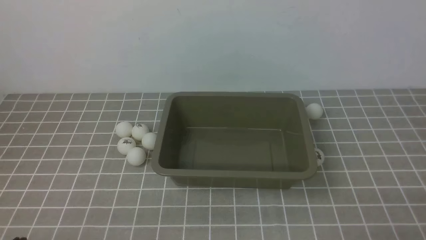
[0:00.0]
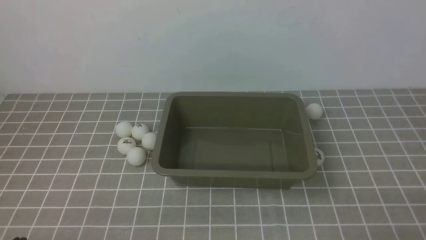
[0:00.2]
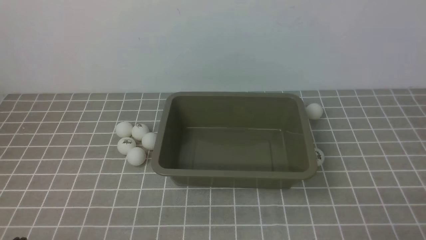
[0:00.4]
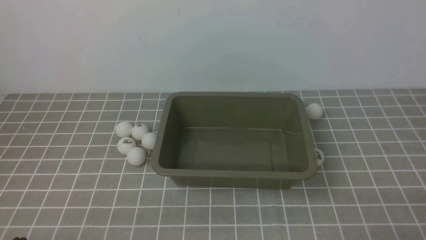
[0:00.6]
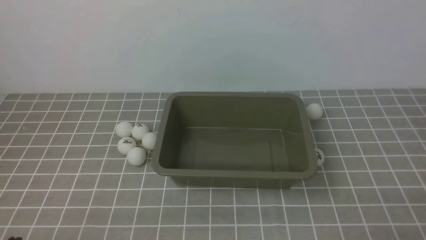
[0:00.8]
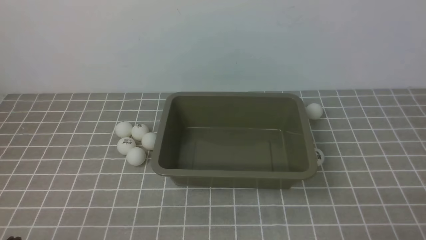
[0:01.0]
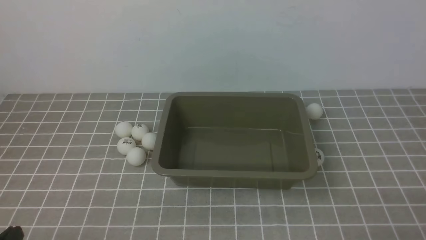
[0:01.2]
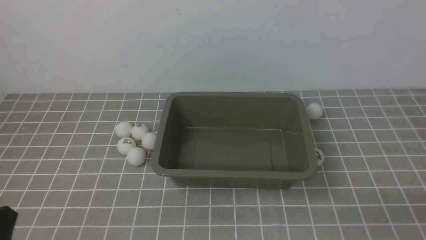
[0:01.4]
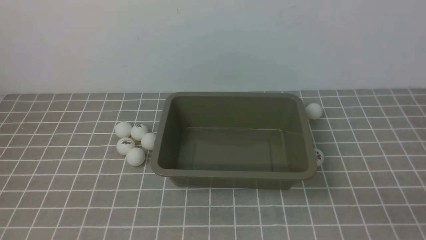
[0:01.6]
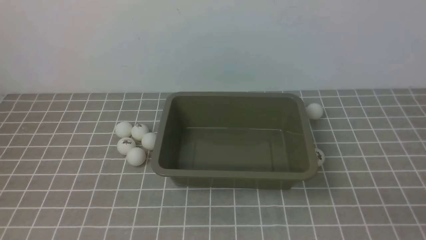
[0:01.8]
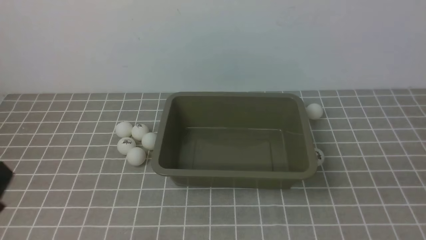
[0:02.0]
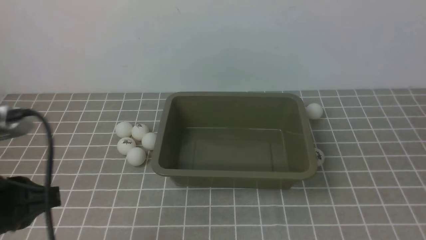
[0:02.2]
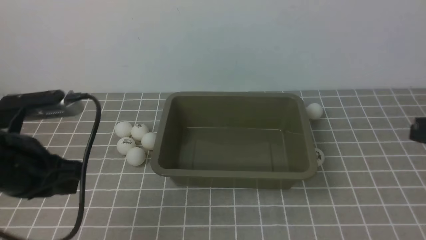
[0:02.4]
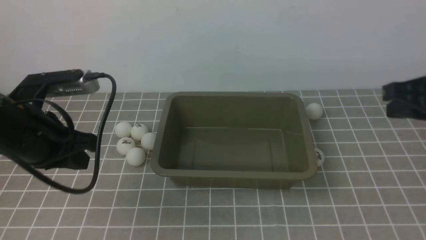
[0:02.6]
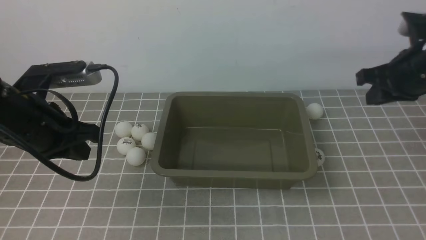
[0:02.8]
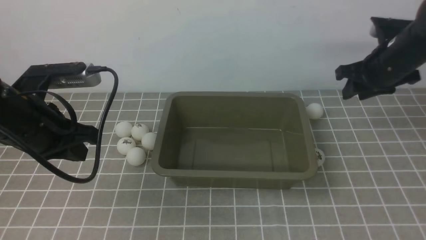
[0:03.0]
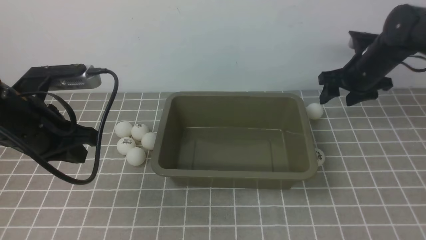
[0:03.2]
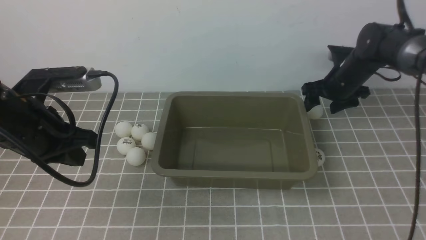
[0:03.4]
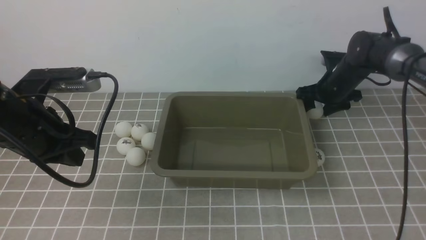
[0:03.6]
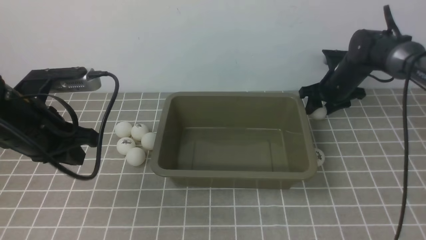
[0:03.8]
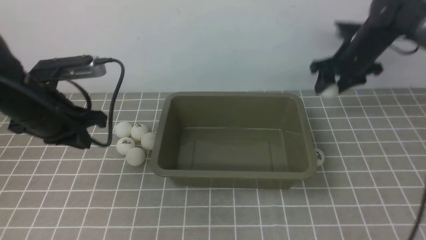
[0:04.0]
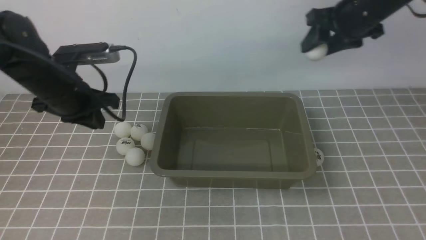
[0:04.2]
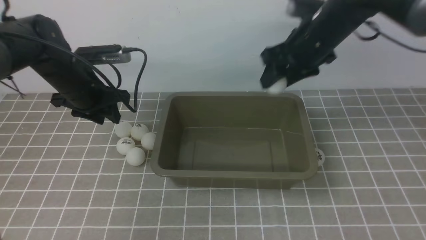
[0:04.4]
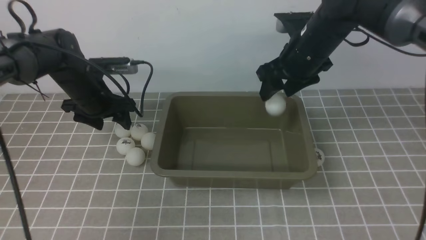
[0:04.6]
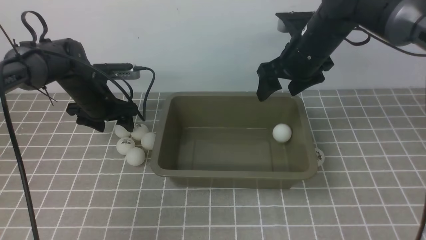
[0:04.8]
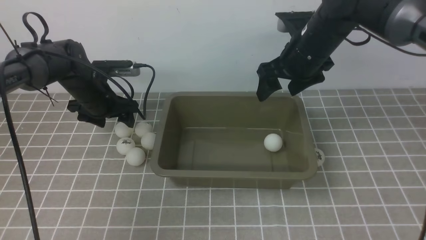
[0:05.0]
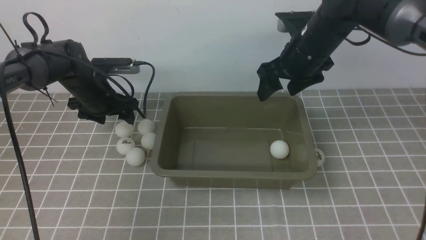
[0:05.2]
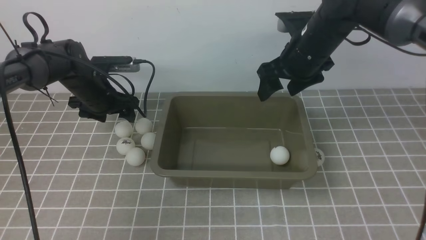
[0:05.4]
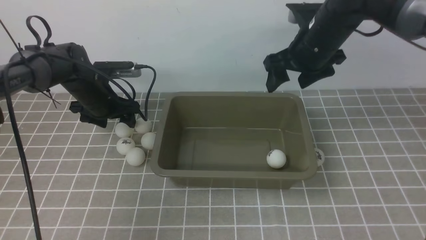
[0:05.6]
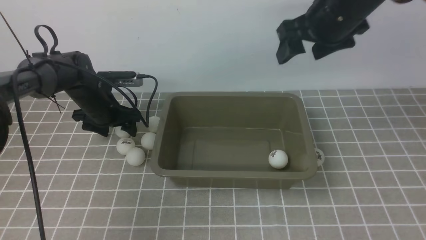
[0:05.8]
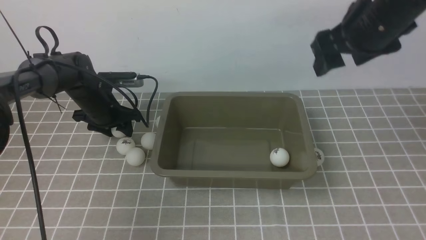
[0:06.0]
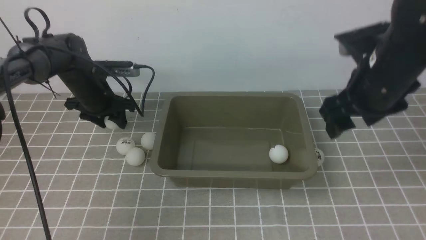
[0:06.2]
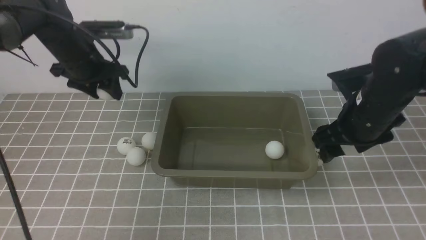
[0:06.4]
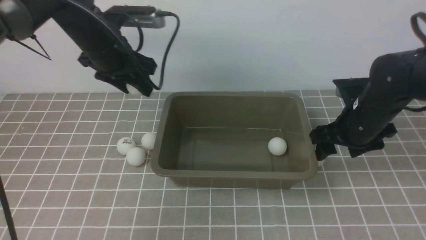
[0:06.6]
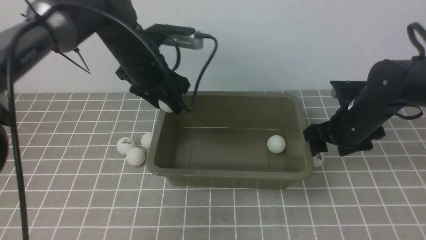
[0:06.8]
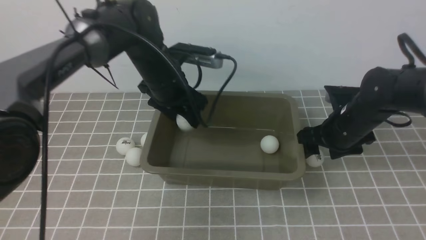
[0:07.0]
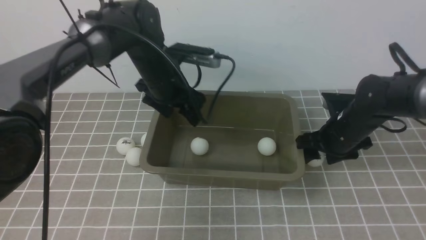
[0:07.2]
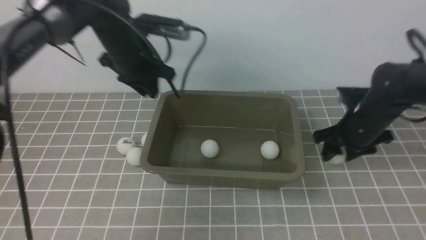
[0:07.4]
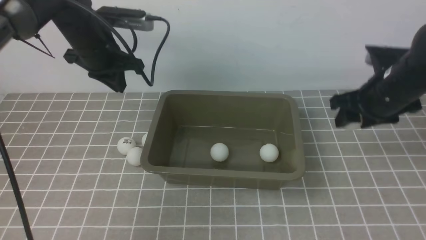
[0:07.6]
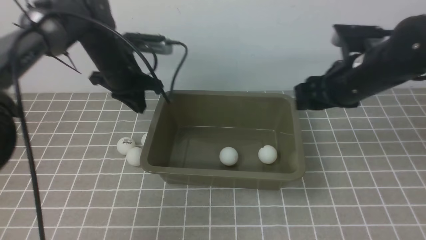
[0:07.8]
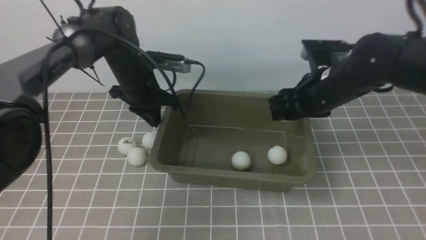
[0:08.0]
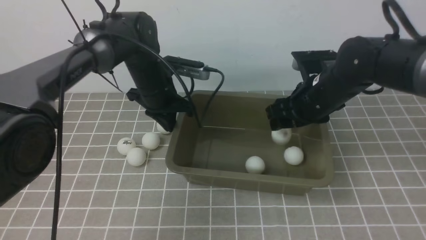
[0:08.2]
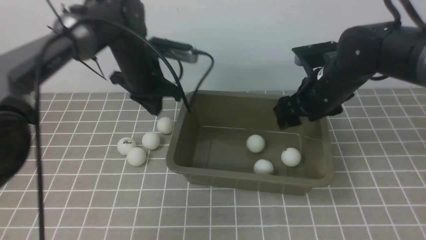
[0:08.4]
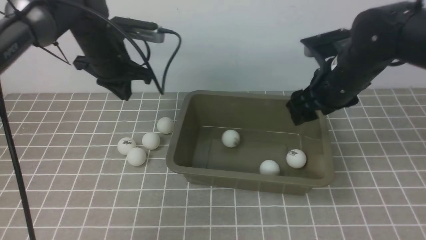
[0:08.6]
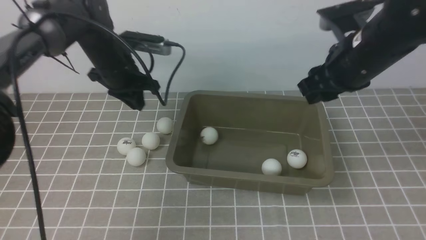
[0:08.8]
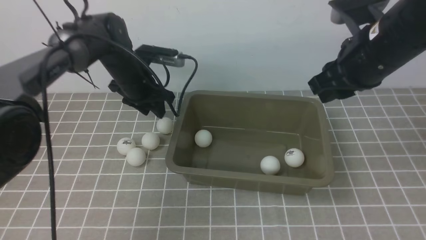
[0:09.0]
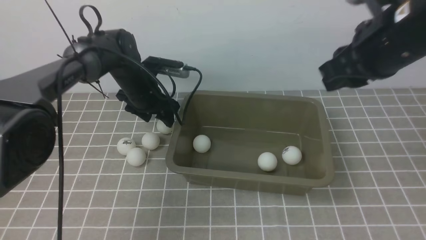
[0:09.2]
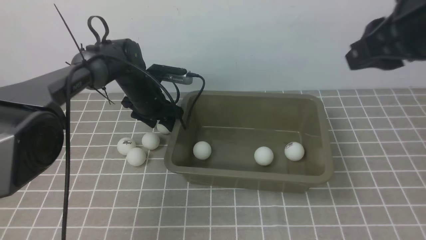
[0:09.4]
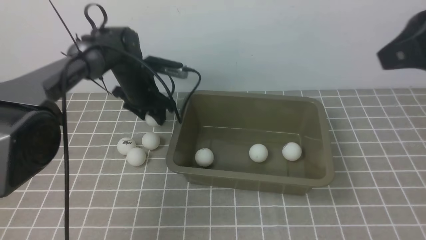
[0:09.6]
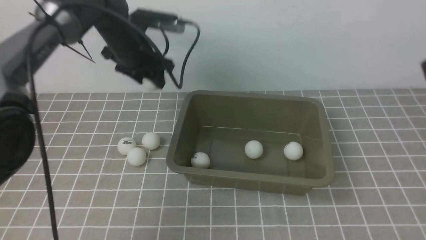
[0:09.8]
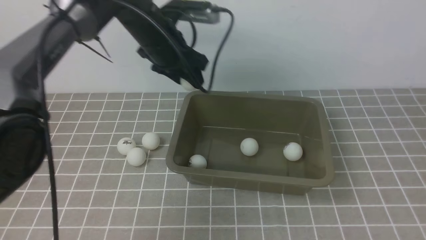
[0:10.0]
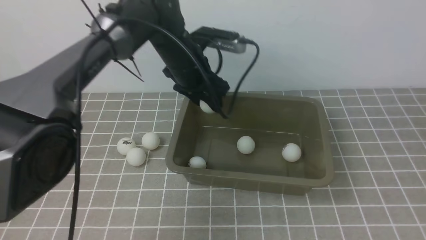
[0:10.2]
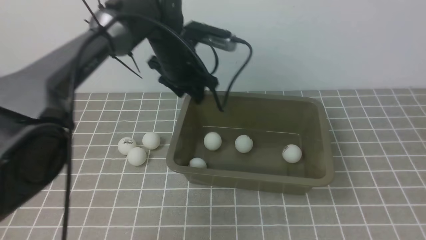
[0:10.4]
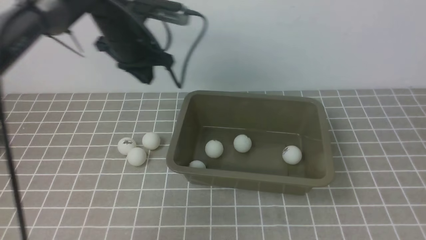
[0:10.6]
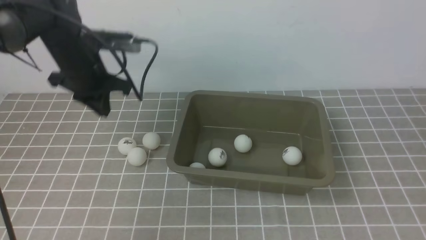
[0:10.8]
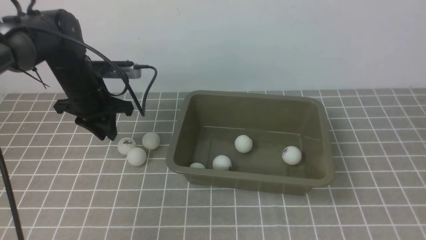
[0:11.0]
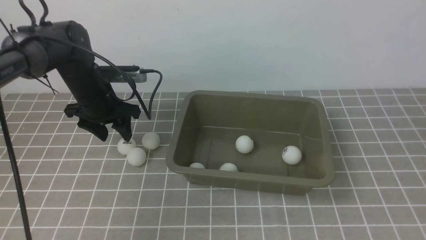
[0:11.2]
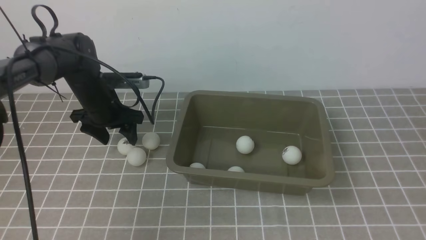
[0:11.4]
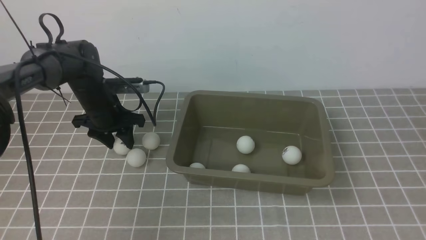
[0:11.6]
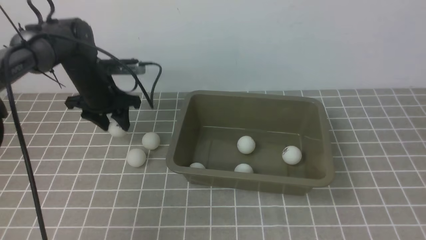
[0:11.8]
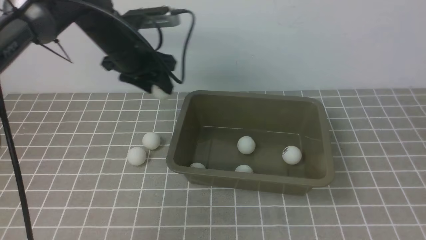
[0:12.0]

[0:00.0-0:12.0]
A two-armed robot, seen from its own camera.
Step, 0:00.0 to 0:03.8: use the right arm to clamp the table tennis ball closest to it.
Step, 0:04.2 to 0:04.8: use the right arm to put the table tennis ball into the box.
Step, 0:05.0 to 0:06.2: use the left arm to clamp the table tennis ball closest to it.
Step, 0:06.4 to 0:07.0: use the left arm to put the table tennis ball into the box.
Step, 0:07.2 to 0:07.4: use the right arm to clamp the table tennis ball closest to it.
Step, 0:07.6 to 0:08.2: use the right arm to put the table tennis ball into the box.
Step, 0:08.4 to 0:09.6: use the left arm to clamp the table tennis ball closest to it.
Step, 0:09.8 to 0:10.4: use the left arm to put the table tennis ball into the box.
Step, 0:10.6 to 0:11.8: use the left arm to clamp the table tennis ball closest to it.
0:01.6 to 0:03.0: The right gripper moves forward, roughly 35 cm, and opens. The left gripper is displaced forward by approximately 20 cm.
0:03.0 to 0:04.4: The left gripper heads forward and downward, covering approximately 15 cm, and opens its fingers, while the right gripper shifts about 10 cm to the left, and moves some 10 cm downward and comes back.
0:04.4 to 0:06.0: The right gripper travels backward by some 10 cm. Meanwhile the left gripper is displaced downward by approximately 5 cm.
0:06.0 to 0:07.6: The right gripper goes roughly 10 cm downward, while the left gripper travels upward and to the right by about 15 cm, and closes up.
0:07.6 to 0:09.0: The left gripper is displaced downward by about 5 cm, and opens. The right gripper moves upward, approximately 10 cm.
0:09.0 to 0:10.4: The left gripper shifts some 10 cm upward and to the right. Meanwhile the right gripper heads backward and to the right, covering approximately 25 cm.
0:10.4 to 0:12.0: The left gripper reaches roughly 15 cm to the left, then returns.

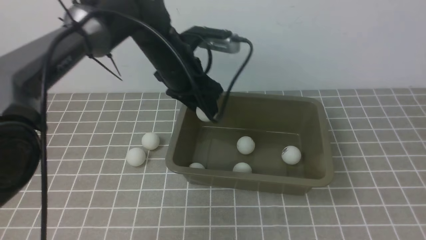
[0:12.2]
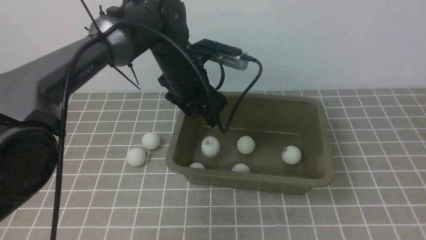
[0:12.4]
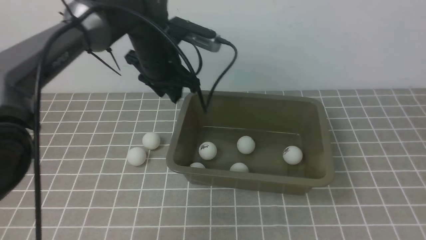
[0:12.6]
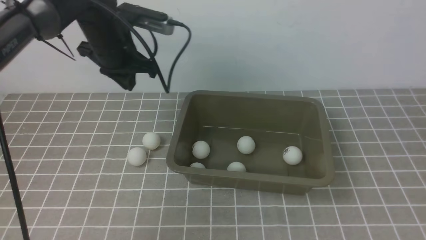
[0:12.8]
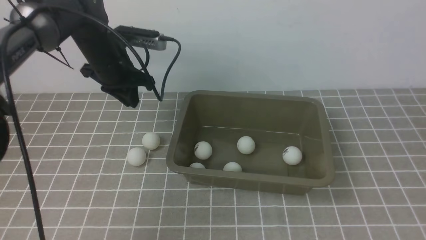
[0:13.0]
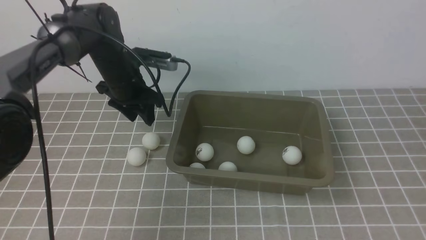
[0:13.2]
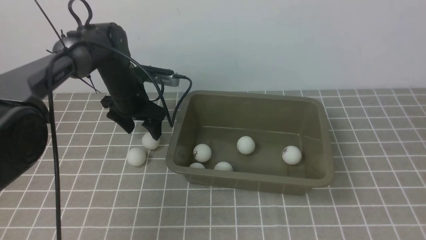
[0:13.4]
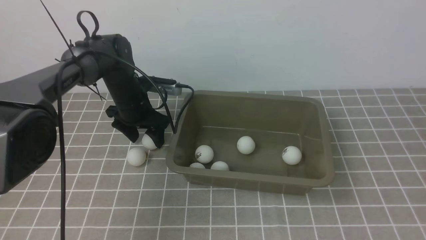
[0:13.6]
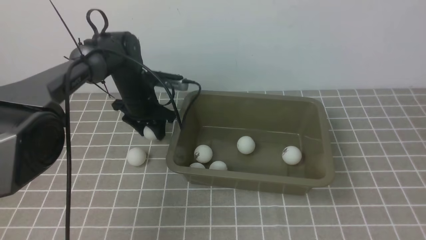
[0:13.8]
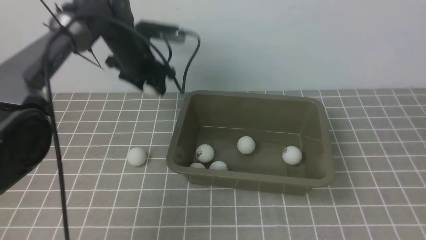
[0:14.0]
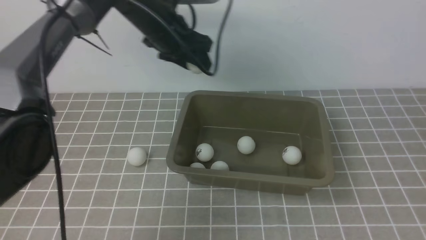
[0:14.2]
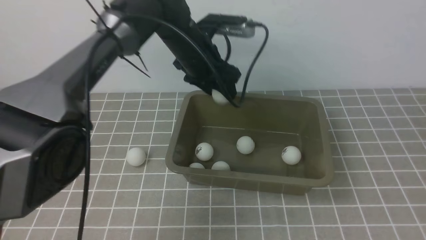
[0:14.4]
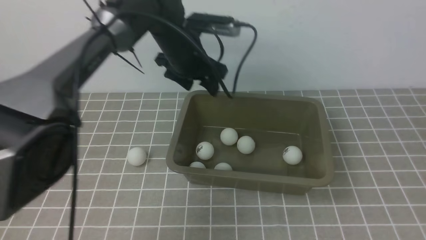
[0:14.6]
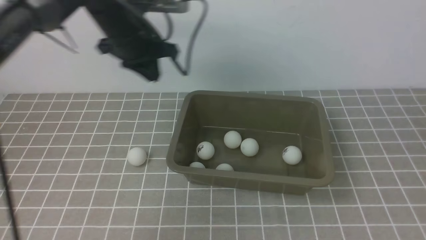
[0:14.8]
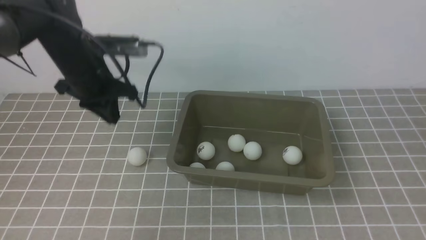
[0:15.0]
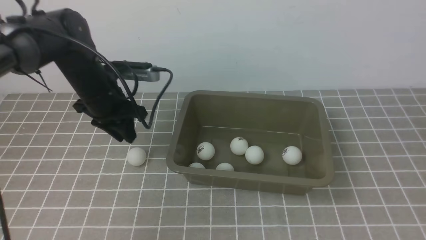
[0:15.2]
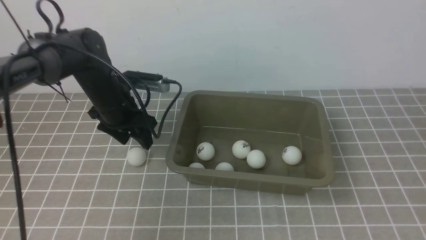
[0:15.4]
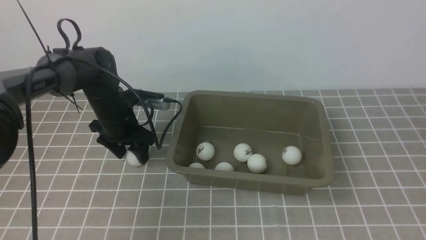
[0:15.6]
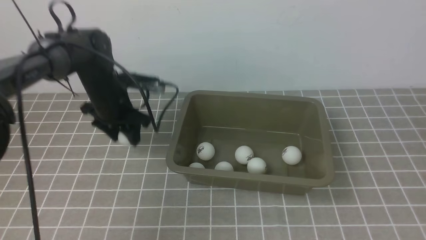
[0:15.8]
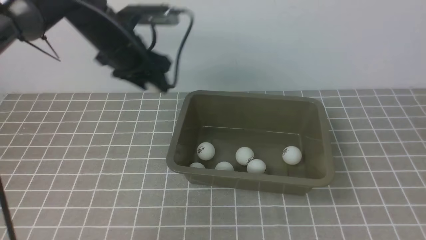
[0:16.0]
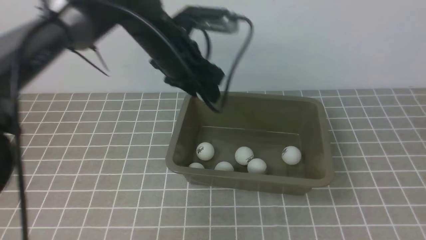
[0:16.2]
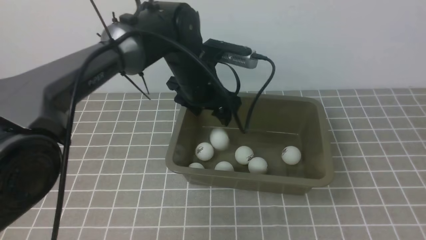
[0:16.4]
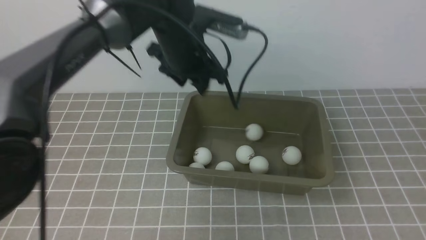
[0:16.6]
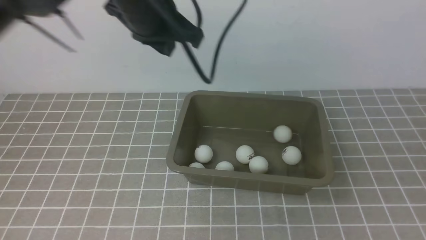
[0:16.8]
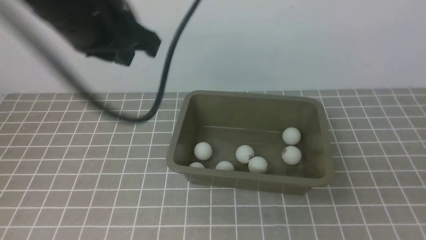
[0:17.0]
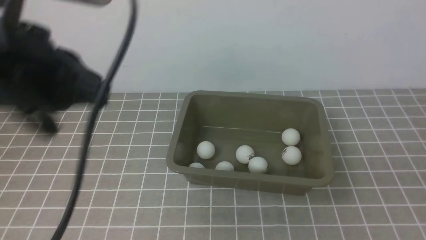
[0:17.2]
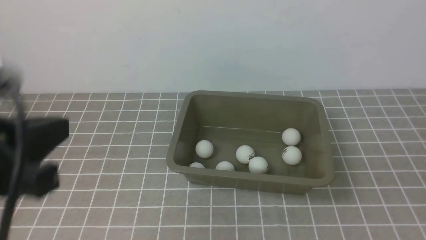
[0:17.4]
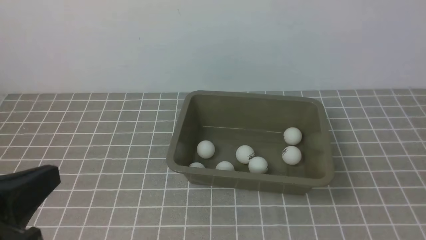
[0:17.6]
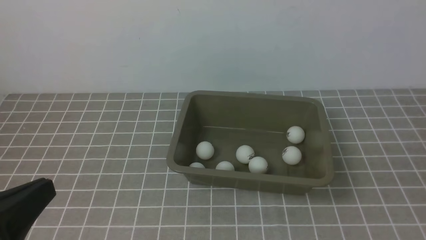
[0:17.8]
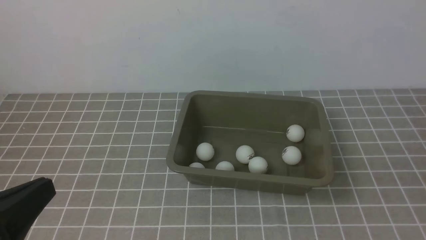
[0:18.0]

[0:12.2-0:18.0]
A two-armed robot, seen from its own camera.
Step, 0:12.2 to 0:12.4: use the left arm to put the table tennis ball into the box.
Step, 0:12.6 to 0:13.8: use the left arm to clamp the table tennis ball closest to it.
Step, 0:14.0 to 0:14.4: use the left arm to put the table tennis ball into the box.
Step, 0:14.8 to 0:15.8: use the left arm to clamp the table tennis ball closest to it.
Step, 0:16.2 to 0:16.6: use the left arm to put the table tennis ball into the box.
0:12.2 to 0:13.6: The left gripper moves downward and to the left, some 15 cm, and closes and opens again.
0:13.6 to 0:15.0: The left gripper goes roughly 10 cm upward and backward, and closes its fingers.
0:15.0 to 0:16.6: The left gripper goes approximately 15 cm to the right and upward. Meanwhile the right gripper is displaced backward by roughly 5 cm.
0:16.6 to 0:18.0: The left gripper heads backward and to the left, covering roughly 35 cm, and closes up. The right gripper shifts by approximately 5 cm.
